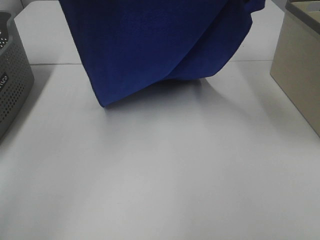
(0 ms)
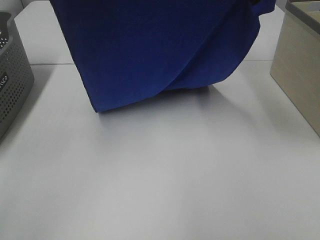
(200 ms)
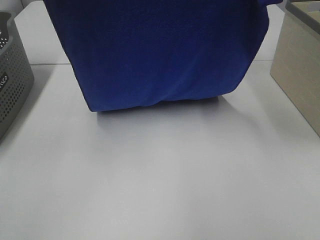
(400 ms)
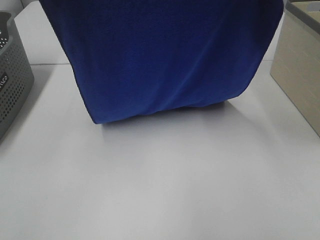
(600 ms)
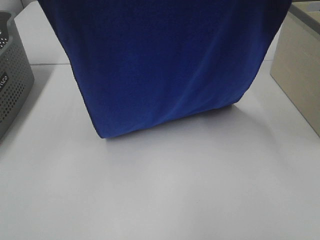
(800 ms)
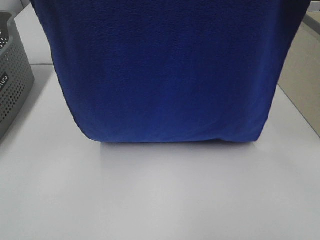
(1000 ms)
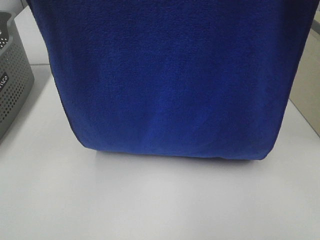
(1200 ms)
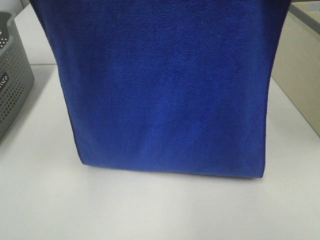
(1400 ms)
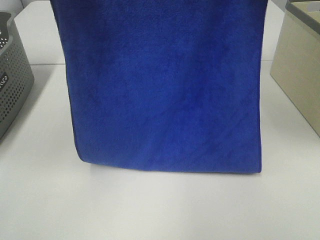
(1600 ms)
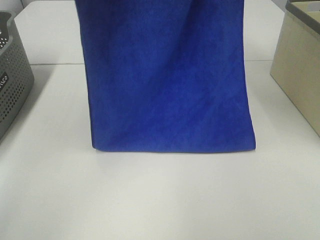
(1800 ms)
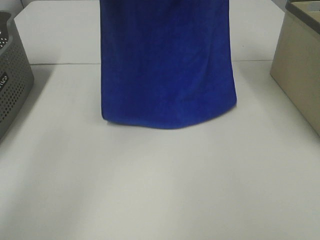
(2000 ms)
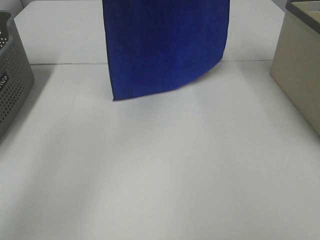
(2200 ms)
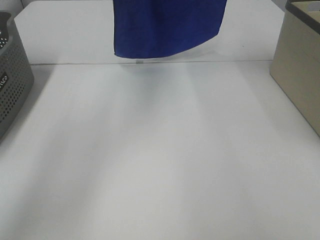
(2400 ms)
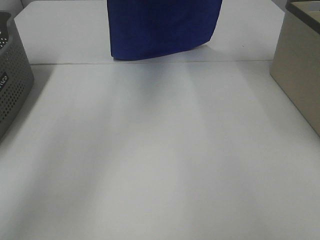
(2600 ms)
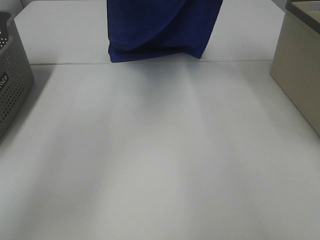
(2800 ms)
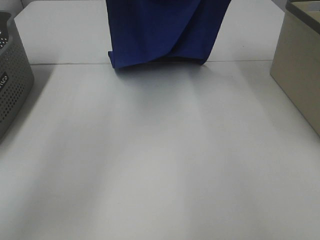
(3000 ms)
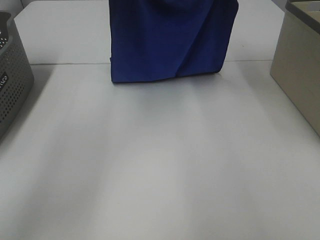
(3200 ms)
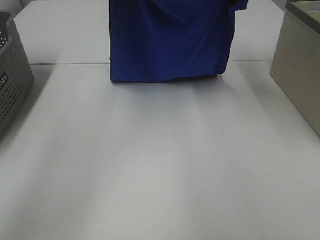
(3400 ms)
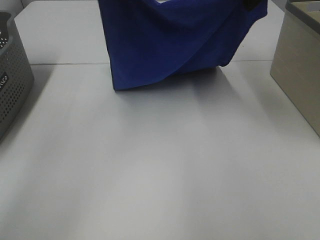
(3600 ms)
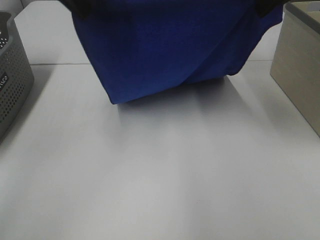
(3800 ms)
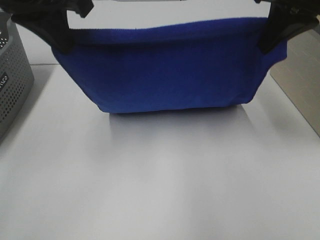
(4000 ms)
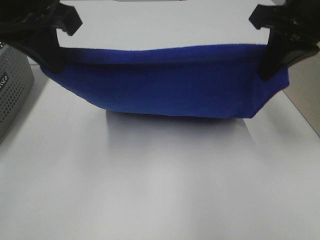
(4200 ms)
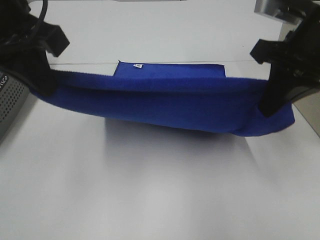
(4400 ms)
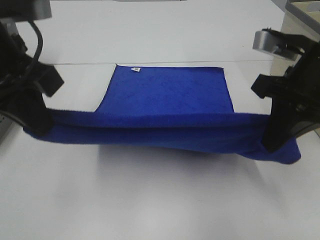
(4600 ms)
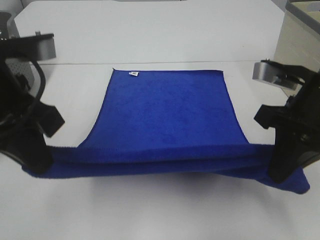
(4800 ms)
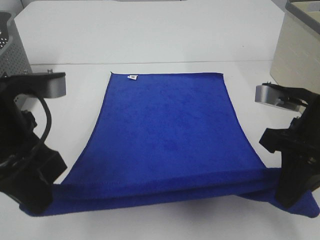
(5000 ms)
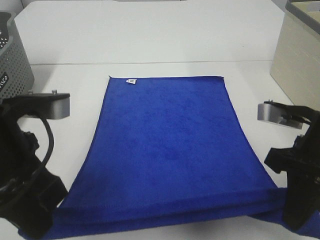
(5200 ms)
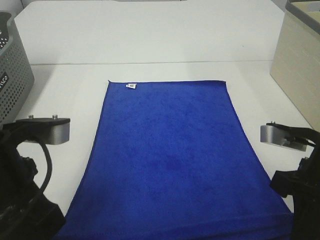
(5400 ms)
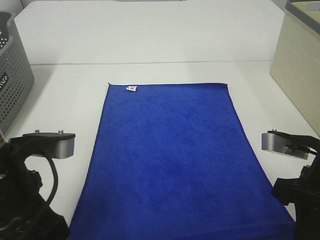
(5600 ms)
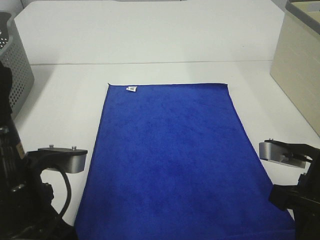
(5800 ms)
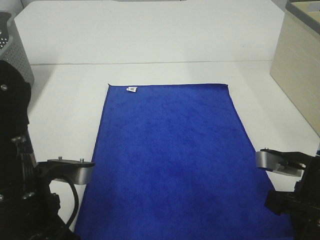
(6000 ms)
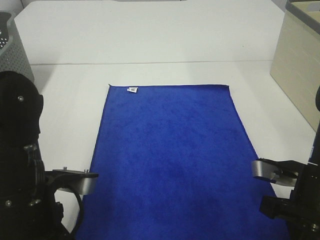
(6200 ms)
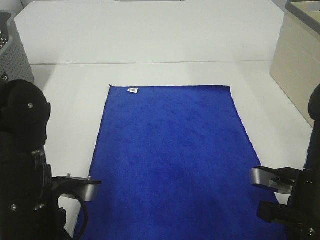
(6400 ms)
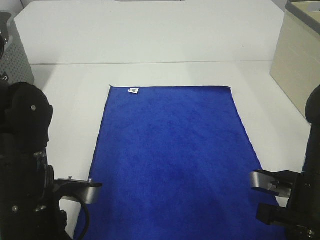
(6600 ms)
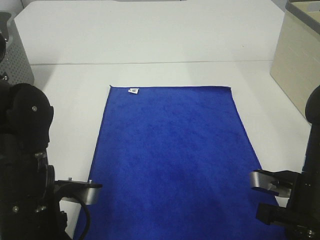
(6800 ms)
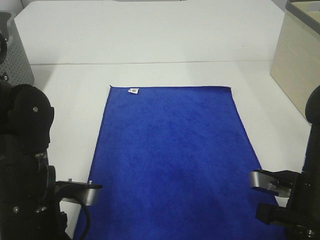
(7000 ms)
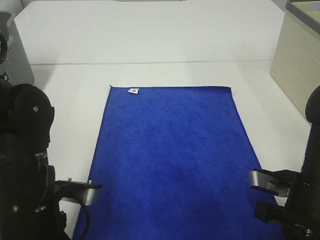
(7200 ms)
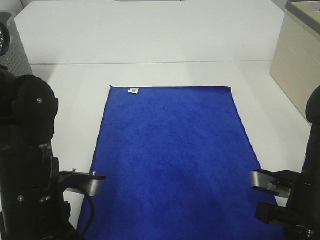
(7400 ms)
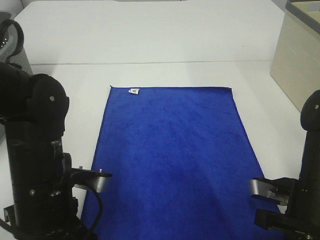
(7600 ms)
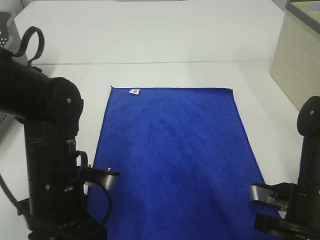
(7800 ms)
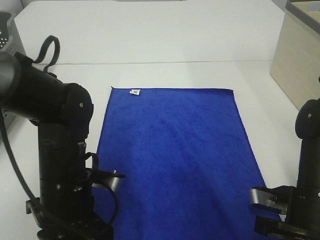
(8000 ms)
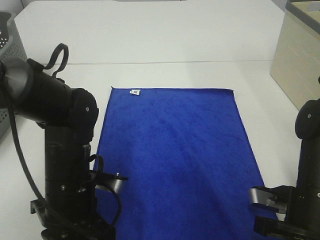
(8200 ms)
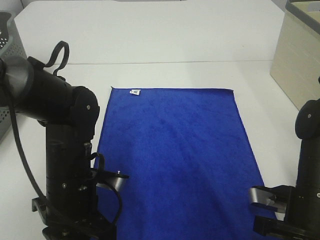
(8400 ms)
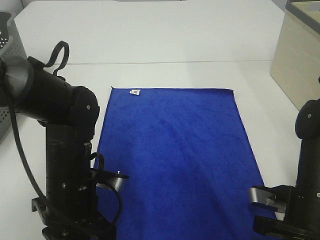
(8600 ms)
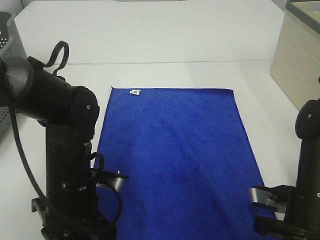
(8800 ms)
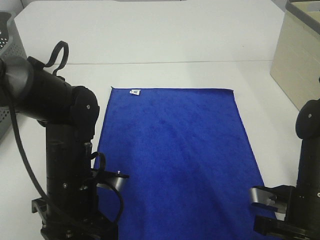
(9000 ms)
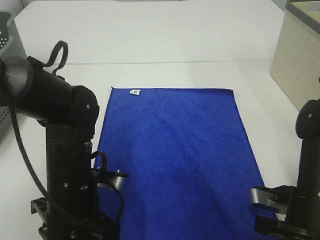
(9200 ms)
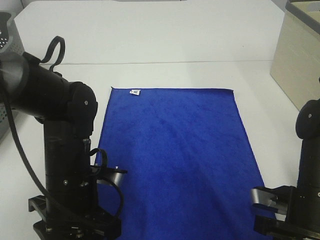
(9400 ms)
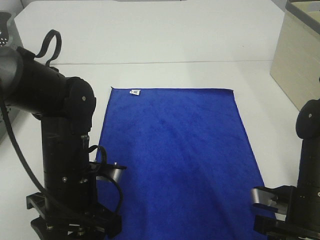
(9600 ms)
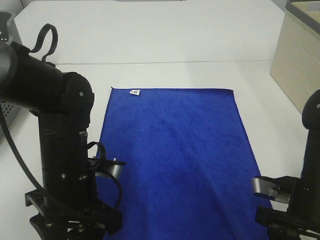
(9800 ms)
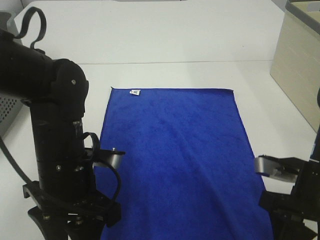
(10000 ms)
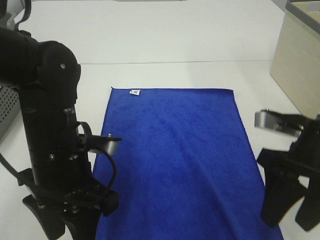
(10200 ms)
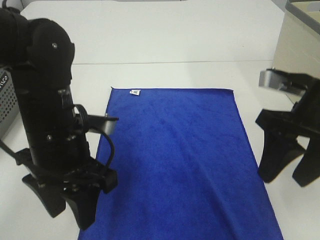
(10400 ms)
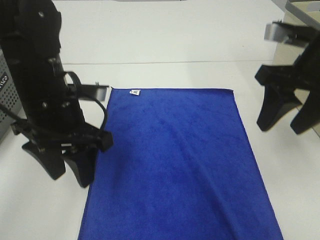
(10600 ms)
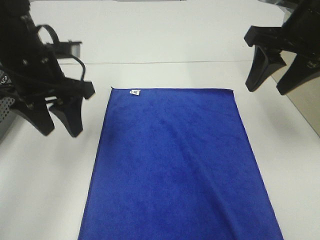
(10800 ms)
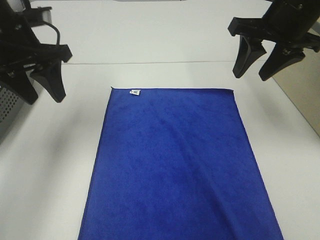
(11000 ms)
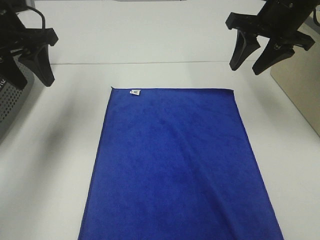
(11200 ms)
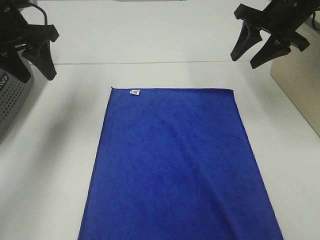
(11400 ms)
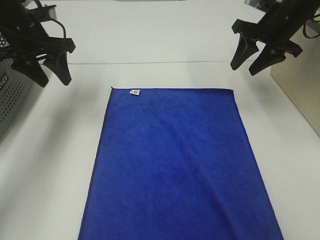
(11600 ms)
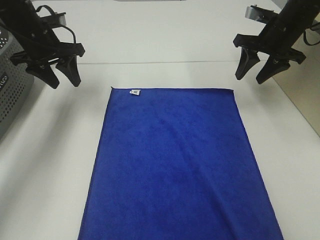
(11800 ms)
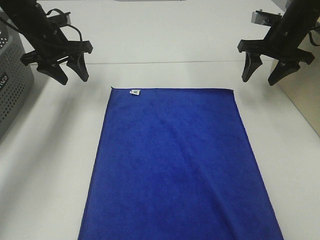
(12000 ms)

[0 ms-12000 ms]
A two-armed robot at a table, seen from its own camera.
Task of the whole recording: Remove the towel and place it.
Step, 0 ms to 3200 ms: Left hand: spread the blue towel flat on the table.
Step, 0 ms to 3200 ms: Right hand: spread the blue towel flat on the table.
0 ms to 1600 ms: The left gripper reaches roughly 15 cm backward, then returns. Meanwhile the right gripper goes backward and returns, some 15 cm each way.
1600 ms to 3000 ms: The left gripper goes some 15 cm forward, to the right and downward; the right gripper moves forward, roughly 15 cm.
3000 ms to 4400 ms: Both grippers travel together backward and downward, roughly 20 cm.
4400 ms to 6000 ms: The two grippers go about 15 cm downward and backward.
6000 ms to 7600 ms: The grippers make only small movements.
7600 ms to 9000 ms: The left gripper shifts by roughly 5 cm.
9000 ms to 10400 ms: The left gripper moves upward, roughly 10 cm, and opens, while the right gripper is displaced upward by some 15 cm, and opens.
10400 ms to 12000 ms: The left gripper heads forward and to the left, covering approximately 30 cm; the right gripper goes about 25 cm forward.

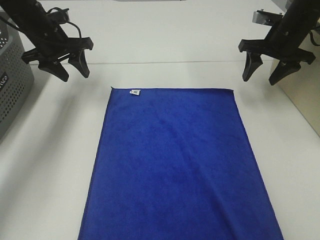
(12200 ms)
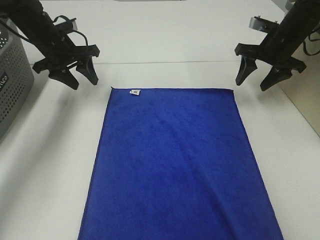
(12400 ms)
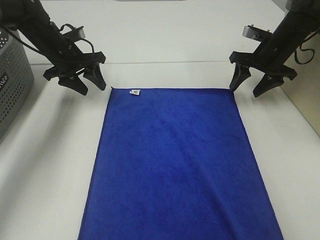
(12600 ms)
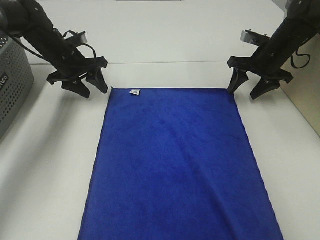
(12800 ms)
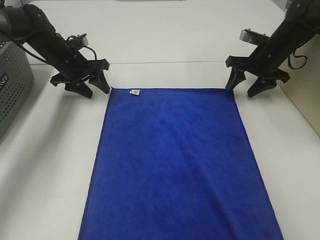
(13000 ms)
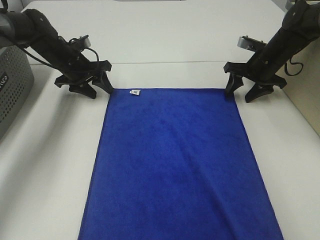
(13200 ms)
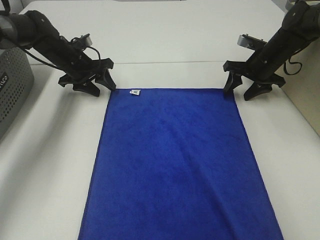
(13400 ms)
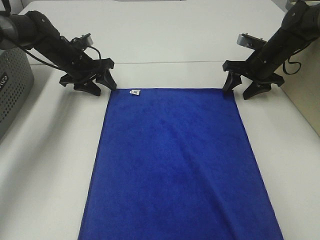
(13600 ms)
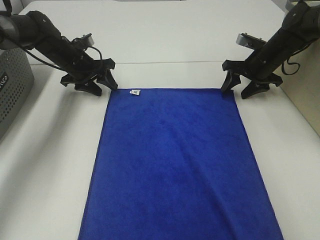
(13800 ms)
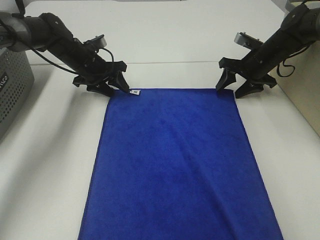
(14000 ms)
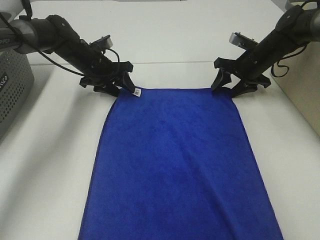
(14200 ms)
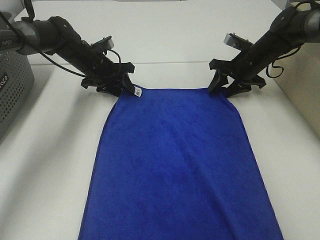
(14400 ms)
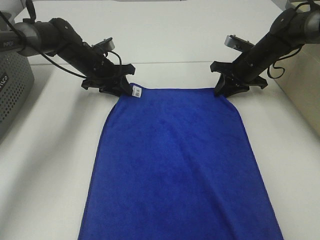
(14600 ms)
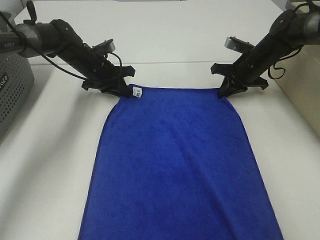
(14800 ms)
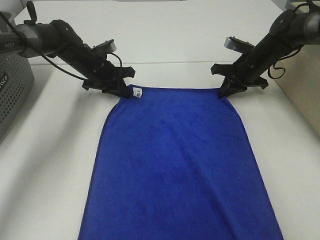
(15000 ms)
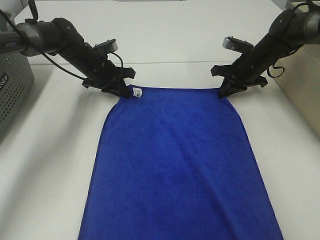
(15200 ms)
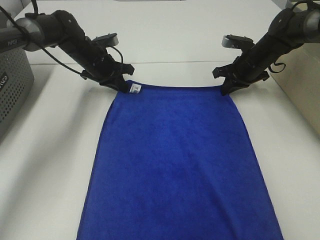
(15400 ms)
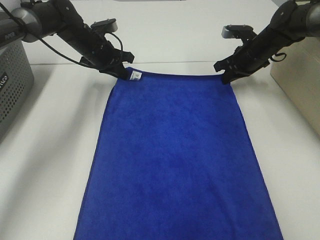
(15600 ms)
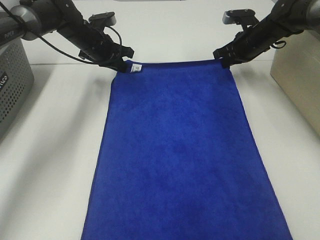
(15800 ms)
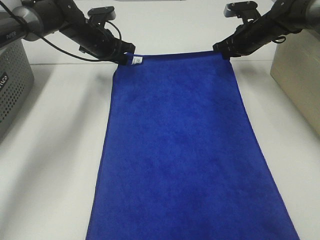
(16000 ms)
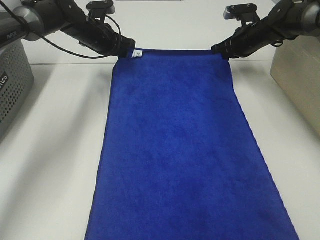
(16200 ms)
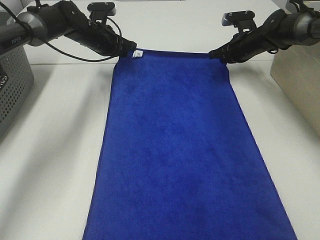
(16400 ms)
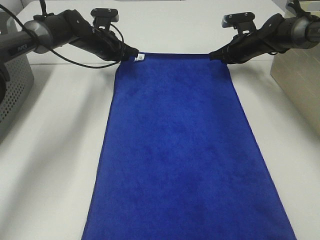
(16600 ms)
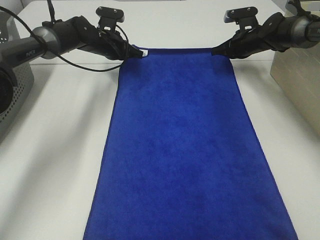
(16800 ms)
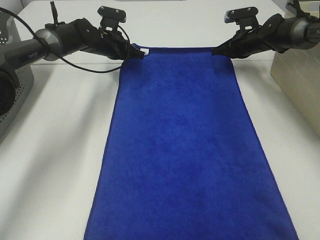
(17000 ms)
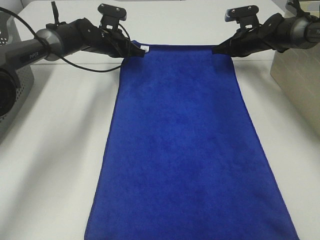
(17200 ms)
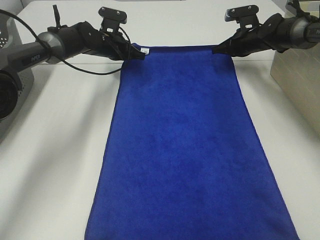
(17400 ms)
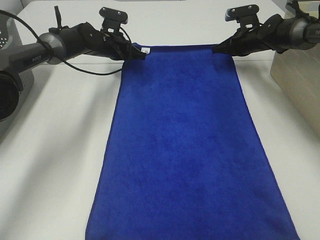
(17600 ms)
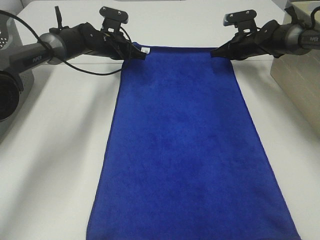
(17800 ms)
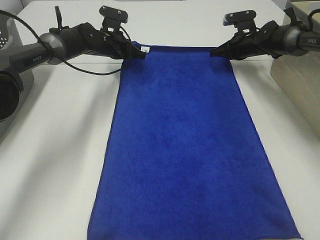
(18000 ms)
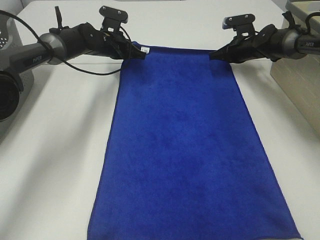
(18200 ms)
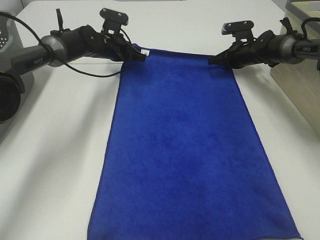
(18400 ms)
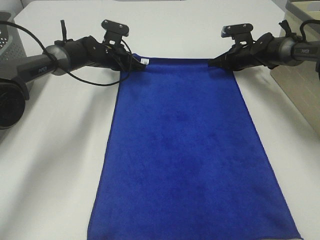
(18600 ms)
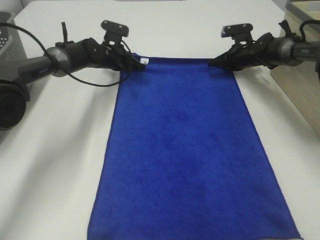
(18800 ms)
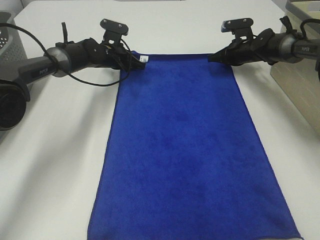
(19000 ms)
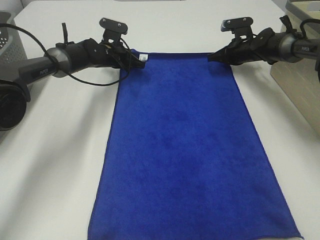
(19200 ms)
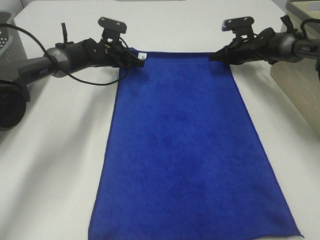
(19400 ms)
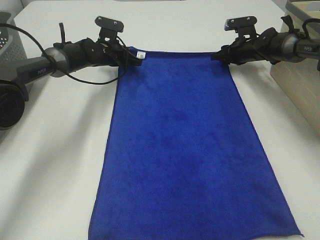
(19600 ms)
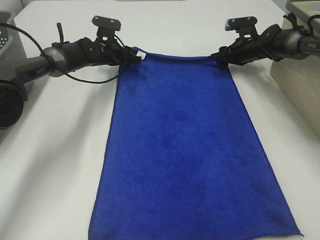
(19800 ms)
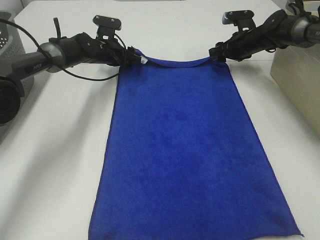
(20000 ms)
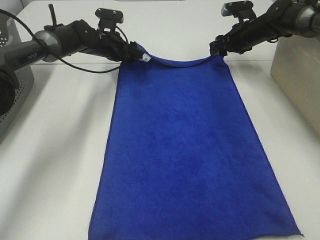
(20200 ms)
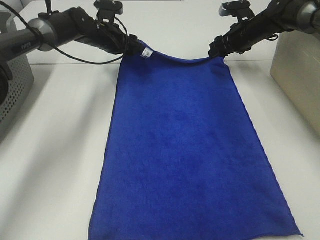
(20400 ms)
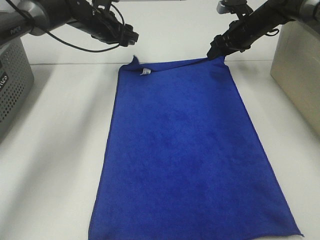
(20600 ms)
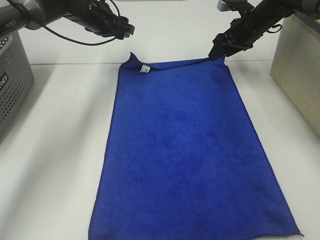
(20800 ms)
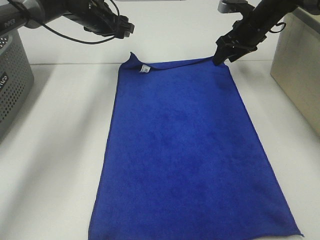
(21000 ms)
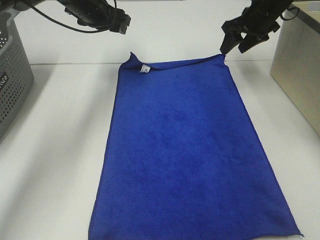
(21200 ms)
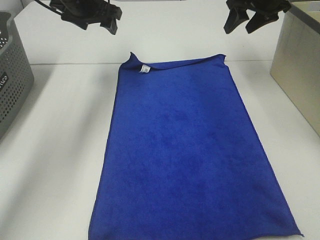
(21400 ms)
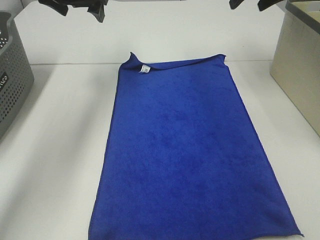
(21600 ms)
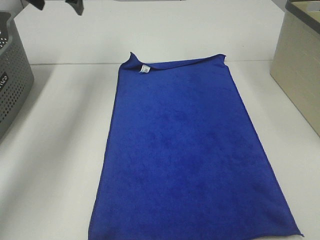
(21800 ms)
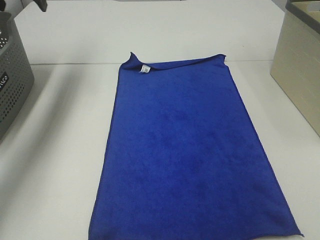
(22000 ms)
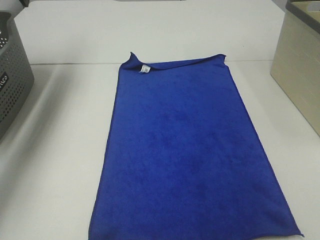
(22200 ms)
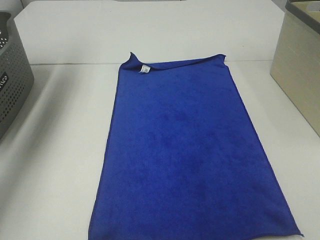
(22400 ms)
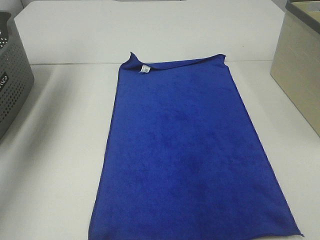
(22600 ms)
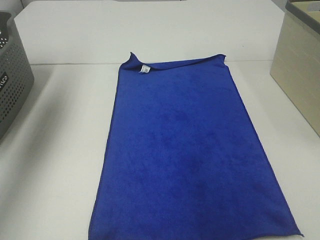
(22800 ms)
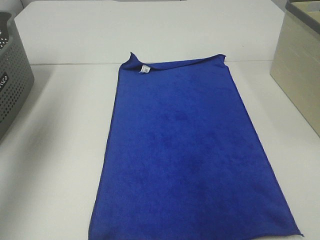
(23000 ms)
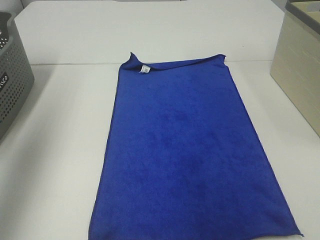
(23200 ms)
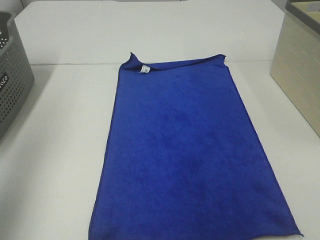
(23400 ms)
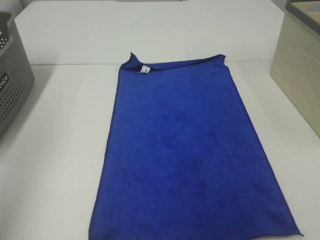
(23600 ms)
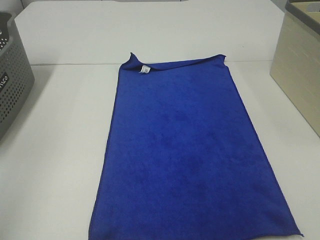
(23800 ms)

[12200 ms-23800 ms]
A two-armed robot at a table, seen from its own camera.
Task of the whole recording: Remove the towel and place it.
12200 ms to 13600 ms: The grippers both shift downward by approximately 10 cm.
13600 ms to 15000 ms: The right gripper closes up. The left gripper travels to the right by roughly 5 cm, and closes its fingers.
15000 ms to 16600 ms: Both grippers travel together forward, some 5 cm.
16600 ms to 19400 ms: The grippers stay close to where they were, moving slightly.
19400 ms to 21000 ms: The grippers both shift upward by approximately 10 cm. The left gripper opens. Meanwhile the right gripper opens its fingers.
21000 ms to 22400 ms: The right gripper is displaced upward and backward by roughly 30 cm; the left gripper is displaced upward, to the left and backward by approximately 25 cm.
22400 ms to 23800 ms: The left gripper shifts about 40 cm backward.
